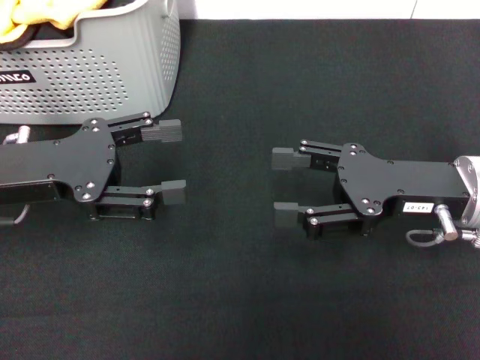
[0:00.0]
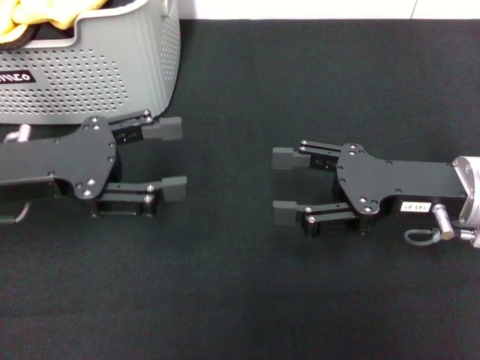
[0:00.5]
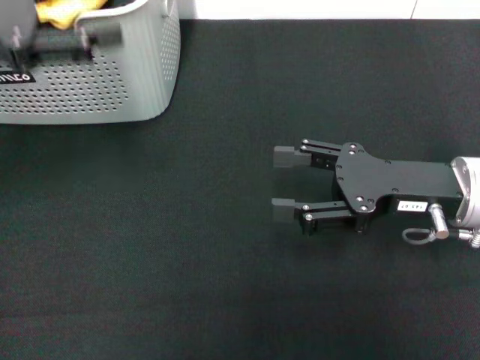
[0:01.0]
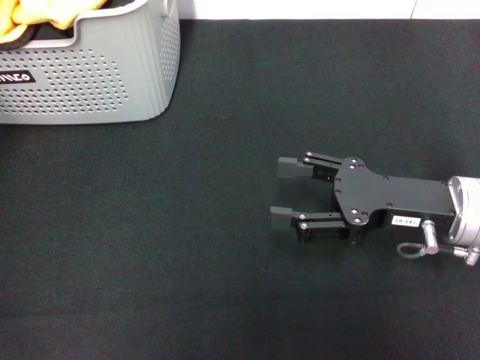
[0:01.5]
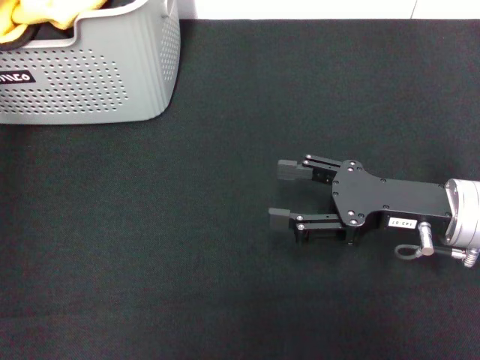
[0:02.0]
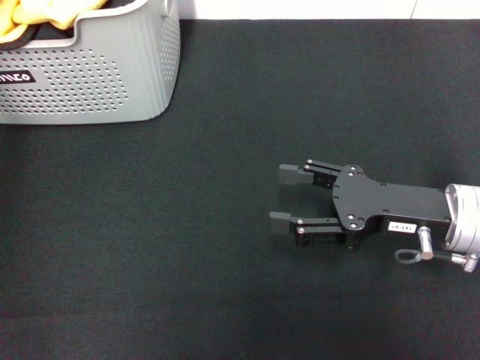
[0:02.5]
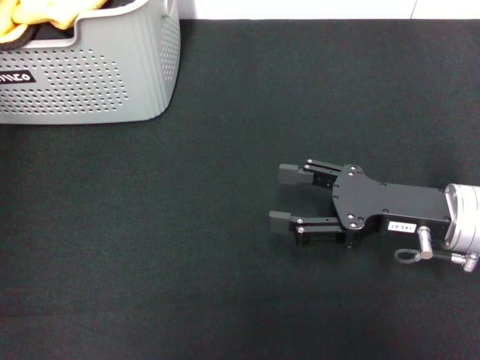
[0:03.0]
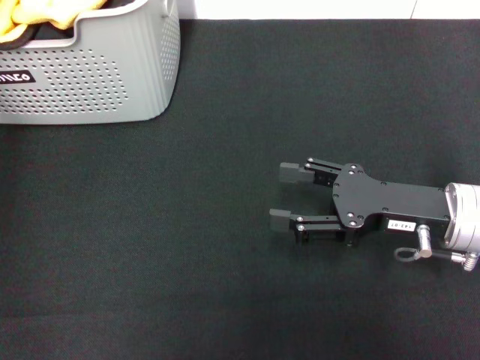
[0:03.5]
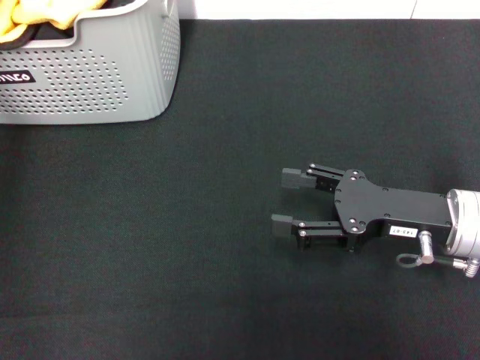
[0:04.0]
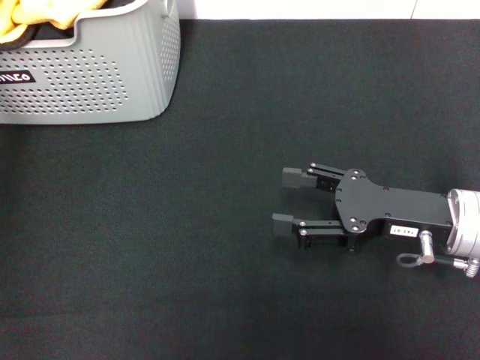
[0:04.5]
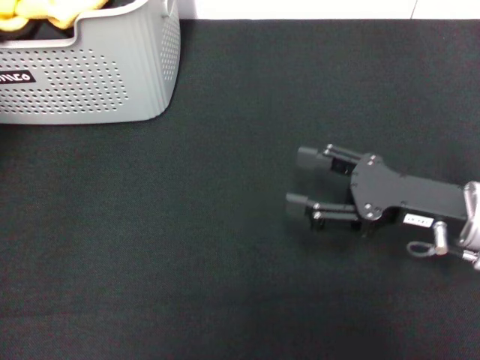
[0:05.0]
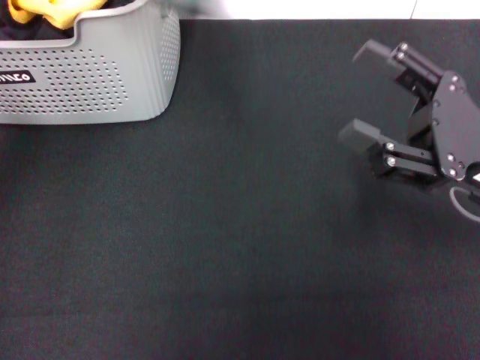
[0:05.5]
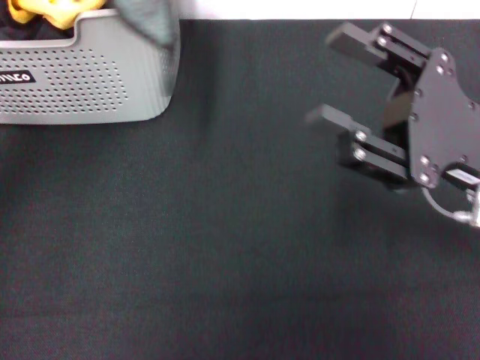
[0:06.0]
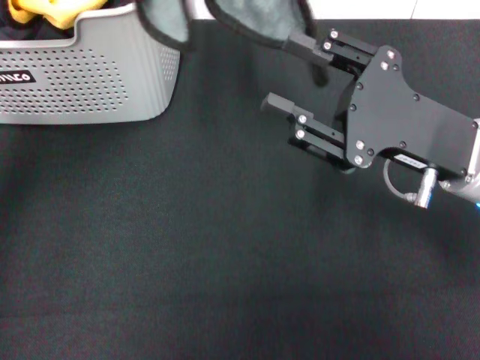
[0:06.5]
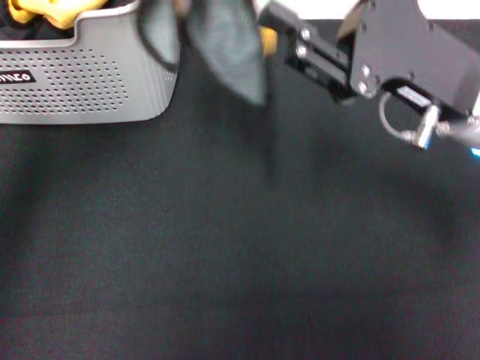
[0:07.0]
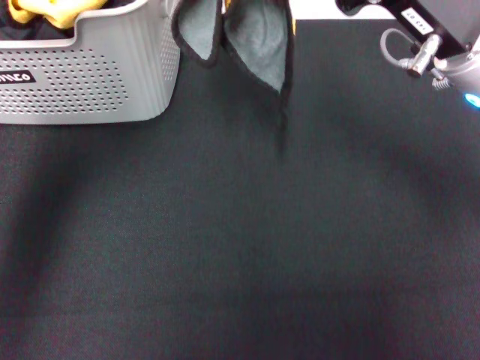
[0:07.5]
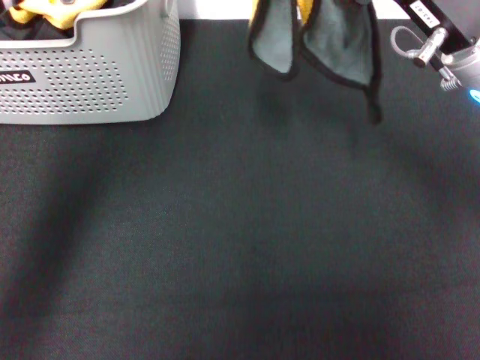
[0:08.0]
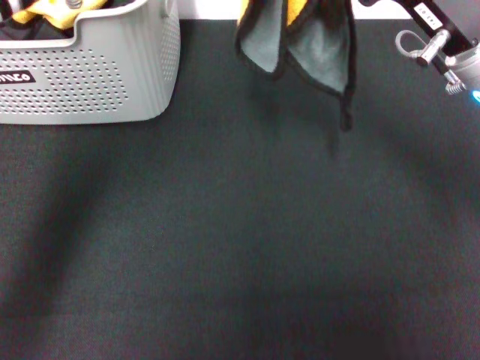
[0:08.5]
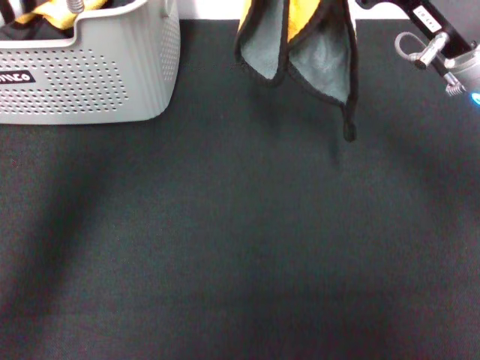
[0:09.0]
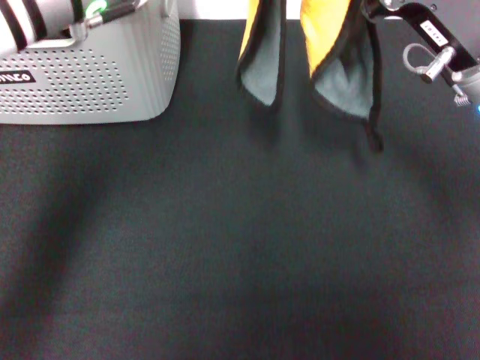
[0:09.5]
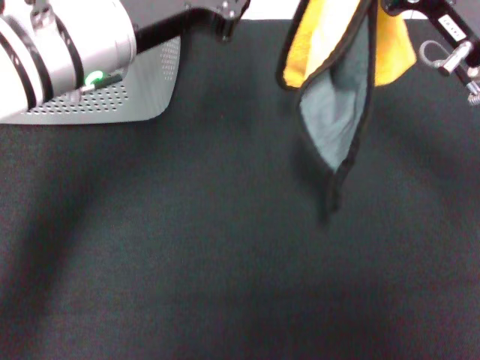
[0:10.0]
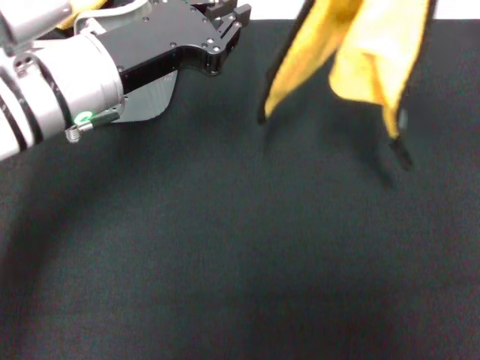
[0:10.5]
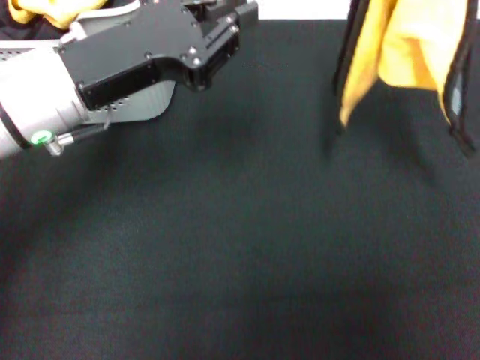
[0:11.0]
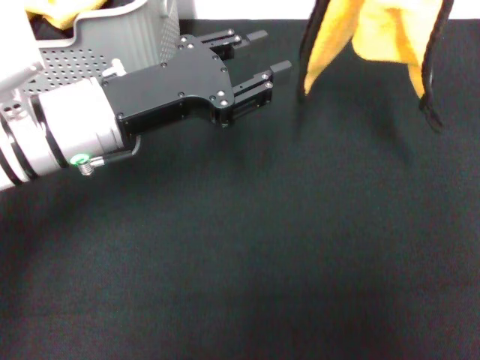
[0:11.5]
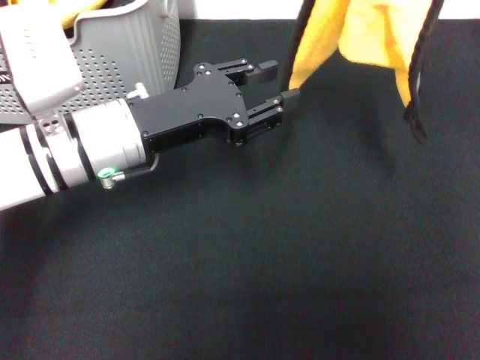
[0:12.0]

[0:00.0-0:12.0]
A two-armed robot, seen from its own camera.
Task of the whole recording: pick up the towel from the storage box and lay it flat on the black tablecloth.
Step, 0:00.0 to 0:04.5: Pick up a towel with the left gripper.
Step, 0:05.0 to 0:09.5: Spread the towel flat with the left gripper.
0:00.0 to 0:02.0: The left gripper moves upward and forward, approximately 15 cm.
0:02.0 to 0:04.0: The two grippers keep their place.
0:04.0 to 0:06.0: The left gripper heads upward, backward and to the right, covering about 20 cm, and closes up; the right gripper heads upward, covering some 5 cm.
0:06.0 to 0:08.0: The left gripper heads to the right and downward, covering approximately 15 cm; the right gripper goes about 5 cm forward.
0:08.0 to 0:10.0: The right gripper closes; the left gripper is displaced downward by about 10 cm.
0:10.0 to 0:12.0: The right gripper travels upward and to the right by approximately 10 cm; the left gripper goes about 10 cm downward, and opens its fingers.

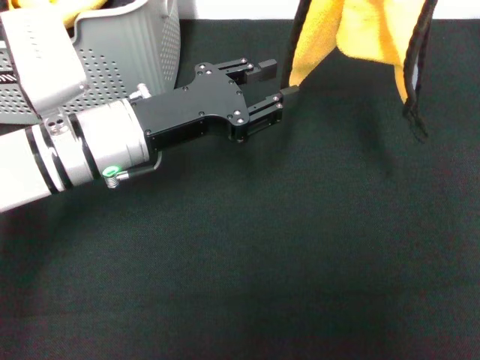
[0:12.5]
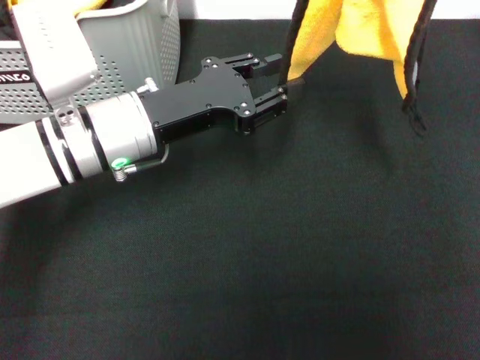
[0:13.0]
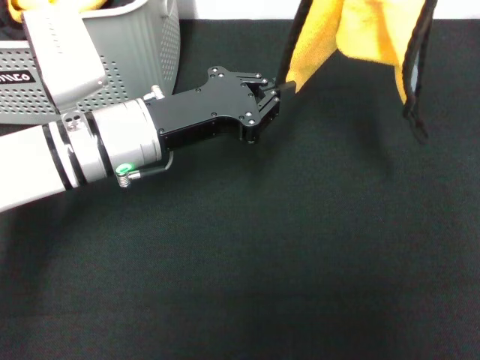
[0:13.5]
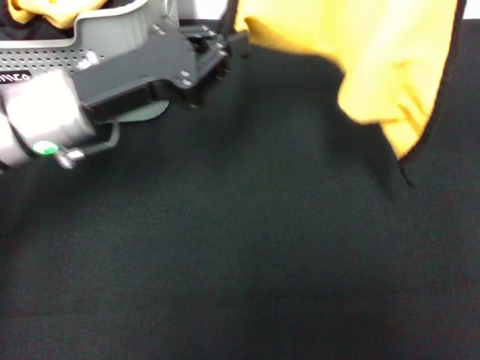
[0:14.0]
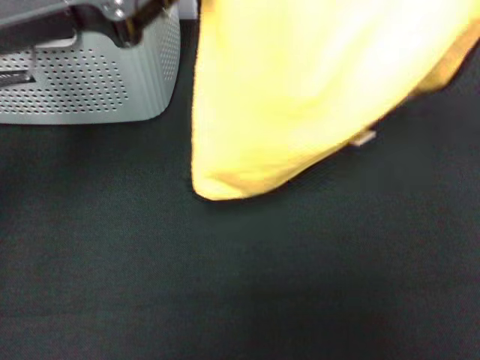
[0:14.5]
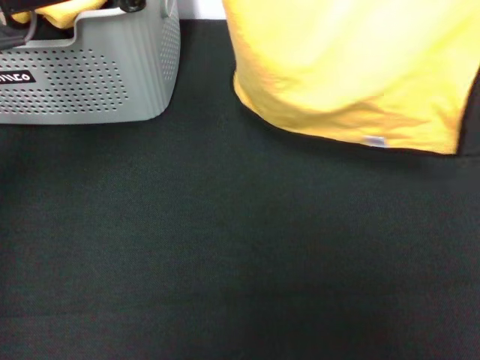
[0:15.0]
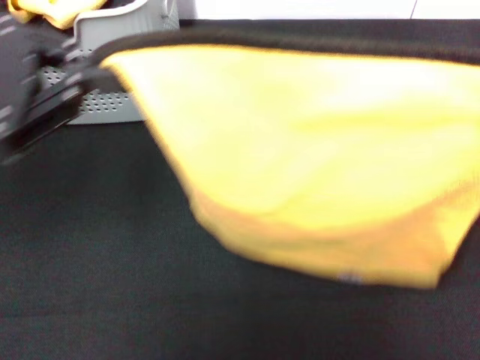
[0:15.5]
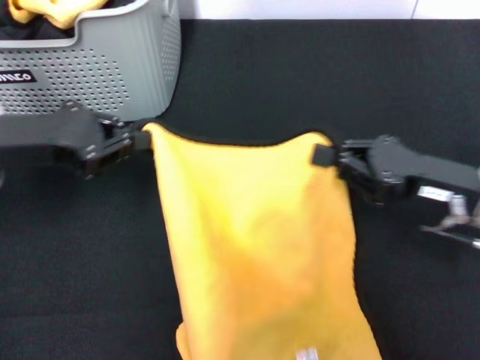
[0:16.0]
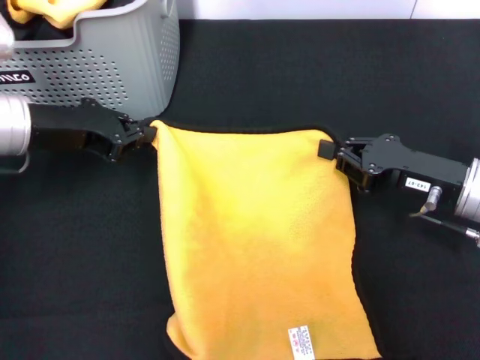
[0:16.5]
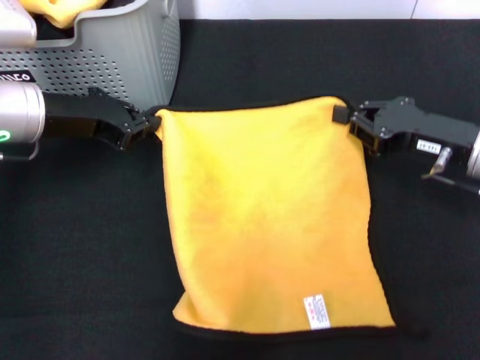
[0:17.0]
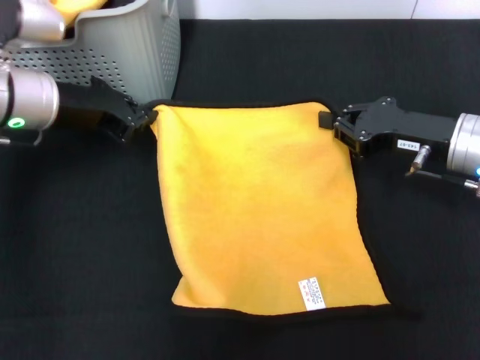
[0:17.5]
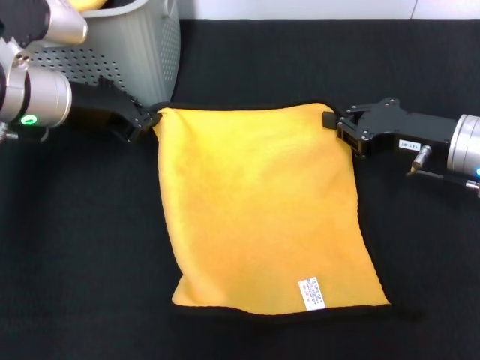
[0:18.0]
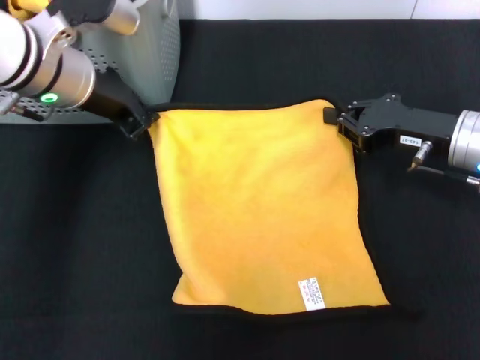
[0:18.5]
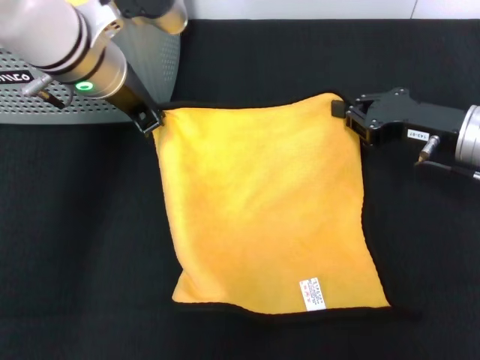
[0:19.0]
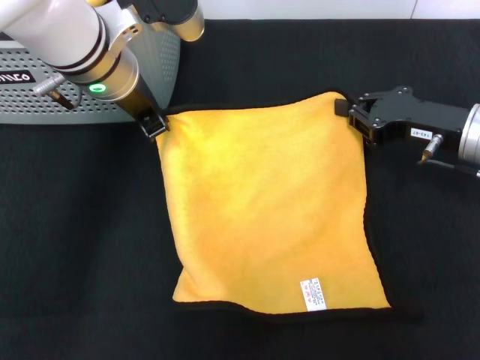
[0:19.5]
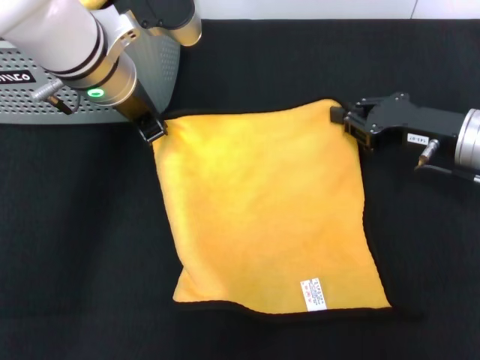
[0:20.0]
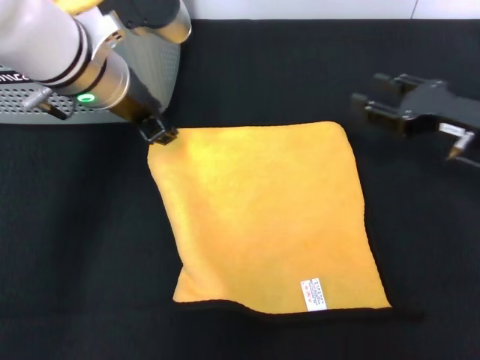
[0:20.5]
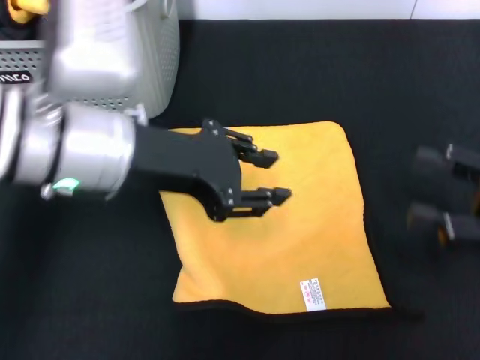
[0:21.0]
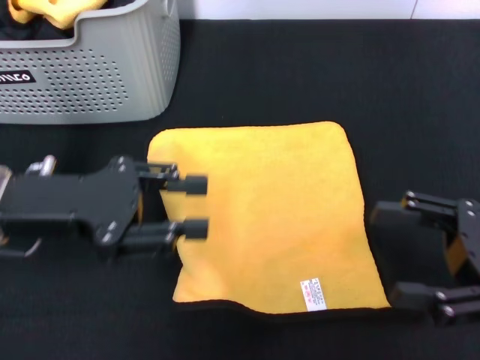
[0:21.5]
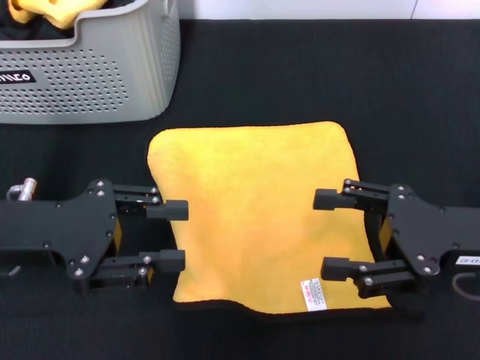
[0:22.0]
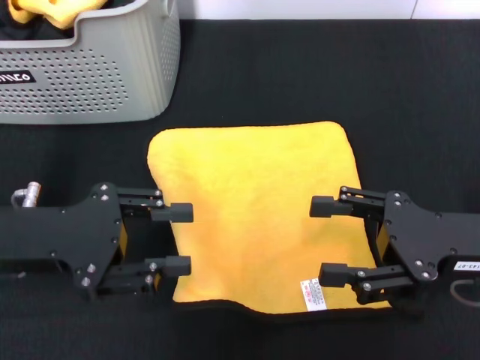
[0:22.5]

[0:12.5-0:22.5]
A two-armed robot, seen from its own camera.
Task of the whole recording: pick up the towel from the storage box and lay it flat on the black tablecloth.
Step, 0:12.5 to 0:20.0: Spread the towel flat with the right gripper.
0:12.5 to 0:14.5: The left gripper is displaced upward and to the left by some 15 cm, and closes, while the right gripper shifts approximately 5 cm to the right.
0:14.5 to 0:16.5: The right gripper shifts roughly 20 cm downward and to the left. Meanwhile the left gripper heads downward, covering roughly 10 cm.
0:16.5 to 0:18.5: The right gripper ends up roughly 5 cm from where it was. The left gripper travels to the right by about 5 cm.
0:18.5 to 0:20.5: The left gripper opens.
0:20.5 to 0:22.5: The right gripper moves backward, some 10 cm, and opens up, while the left gripper travels backward, to the left and downward by about 20 cm.
